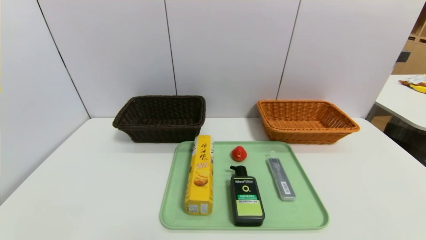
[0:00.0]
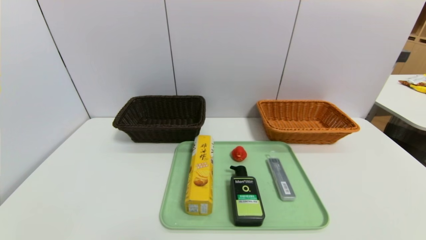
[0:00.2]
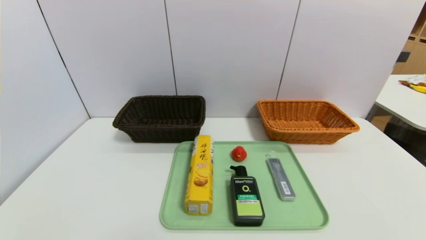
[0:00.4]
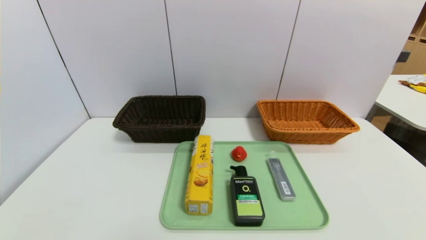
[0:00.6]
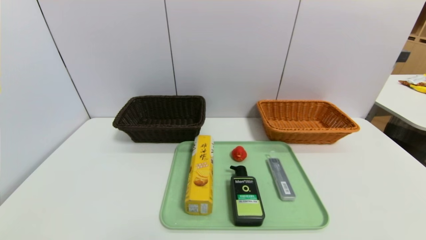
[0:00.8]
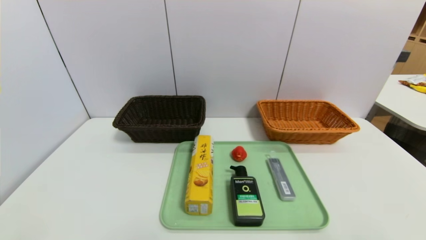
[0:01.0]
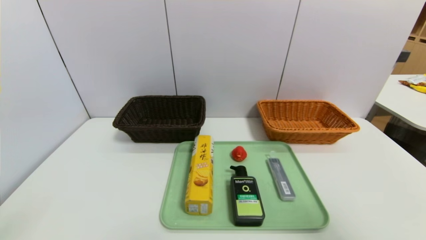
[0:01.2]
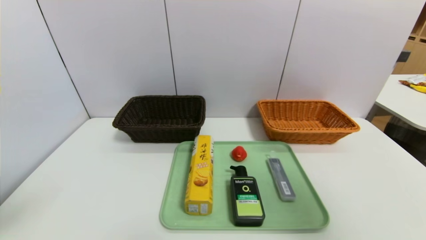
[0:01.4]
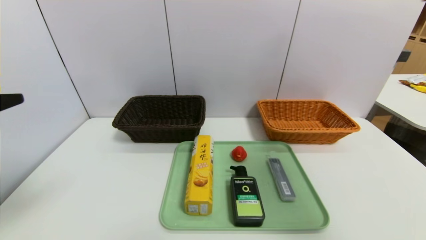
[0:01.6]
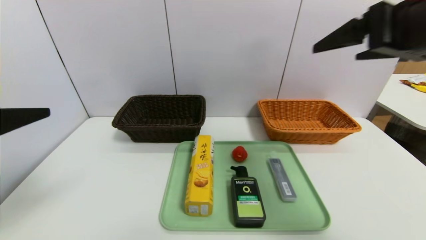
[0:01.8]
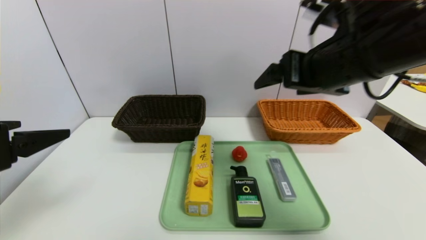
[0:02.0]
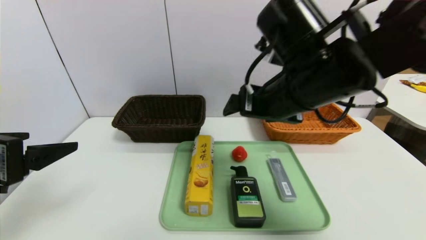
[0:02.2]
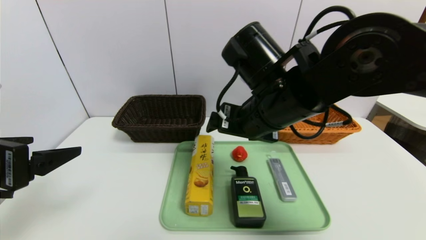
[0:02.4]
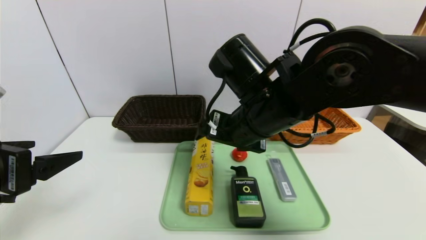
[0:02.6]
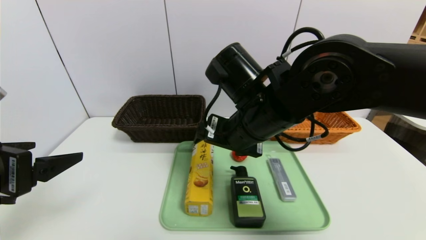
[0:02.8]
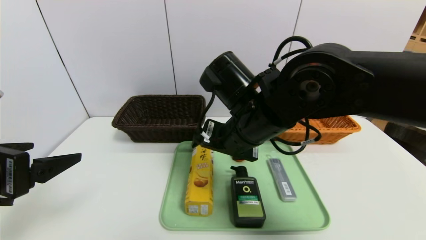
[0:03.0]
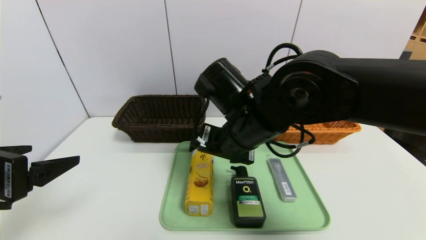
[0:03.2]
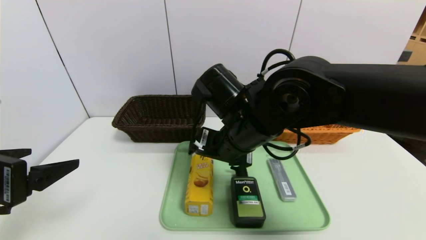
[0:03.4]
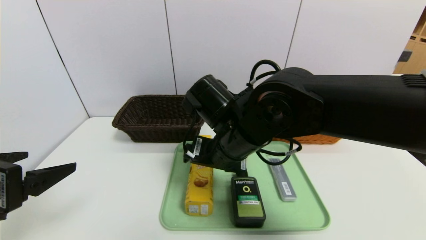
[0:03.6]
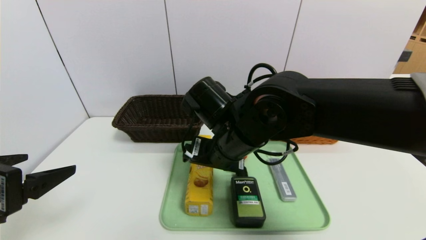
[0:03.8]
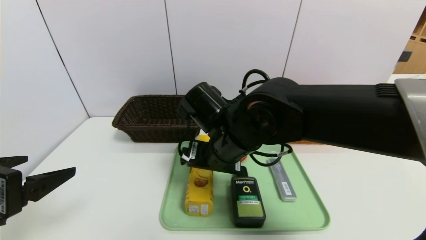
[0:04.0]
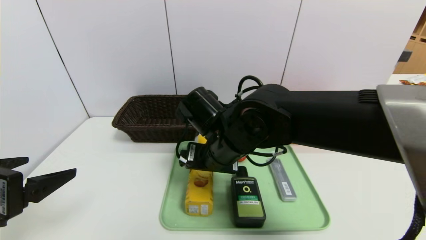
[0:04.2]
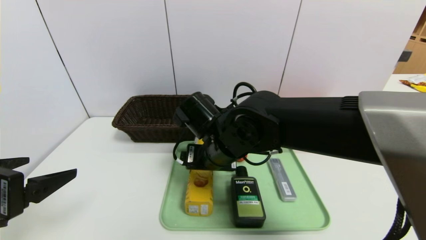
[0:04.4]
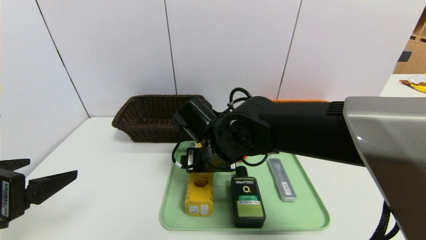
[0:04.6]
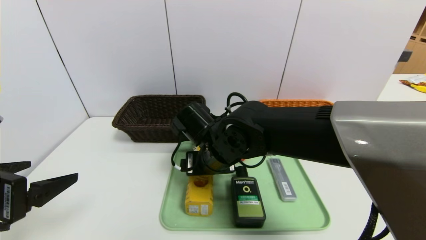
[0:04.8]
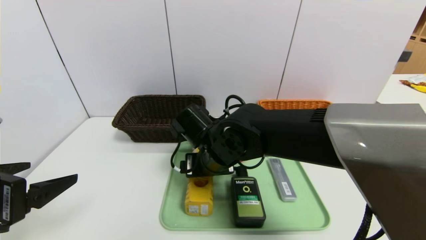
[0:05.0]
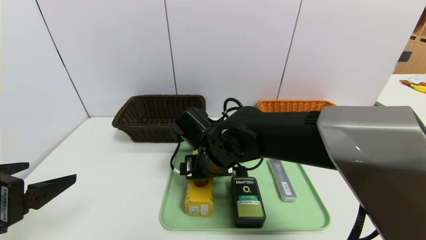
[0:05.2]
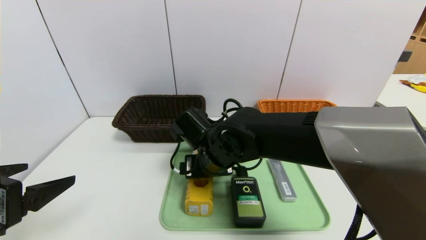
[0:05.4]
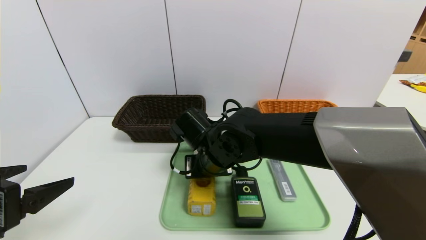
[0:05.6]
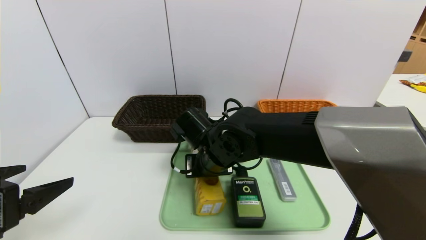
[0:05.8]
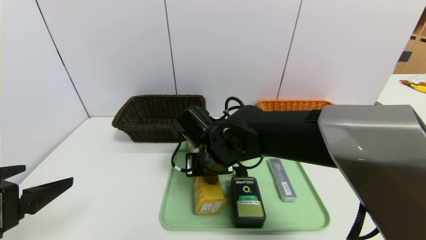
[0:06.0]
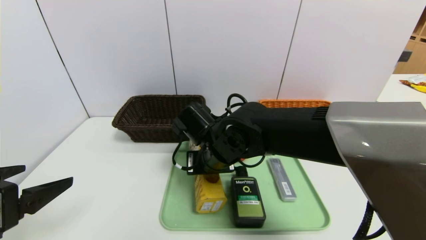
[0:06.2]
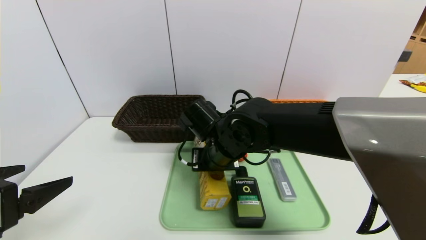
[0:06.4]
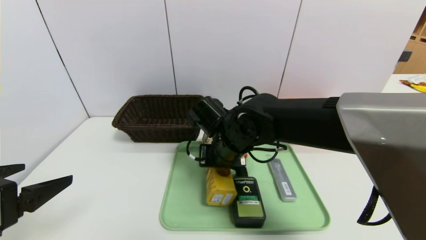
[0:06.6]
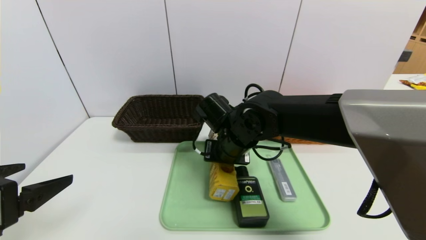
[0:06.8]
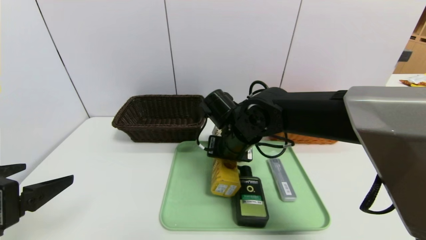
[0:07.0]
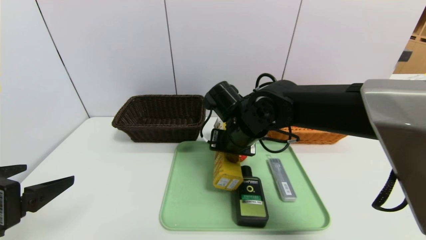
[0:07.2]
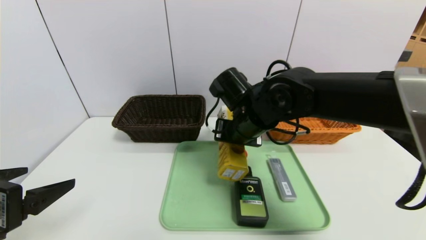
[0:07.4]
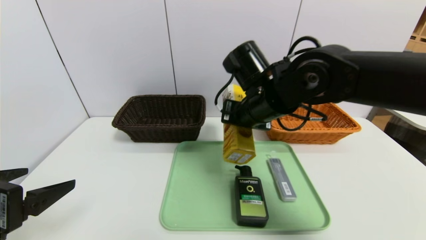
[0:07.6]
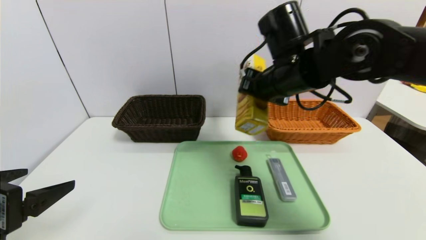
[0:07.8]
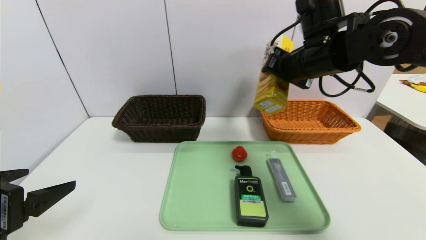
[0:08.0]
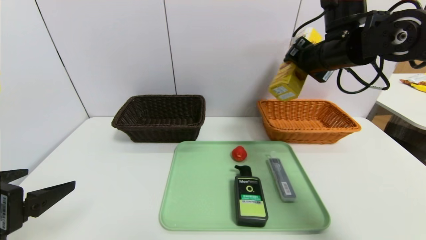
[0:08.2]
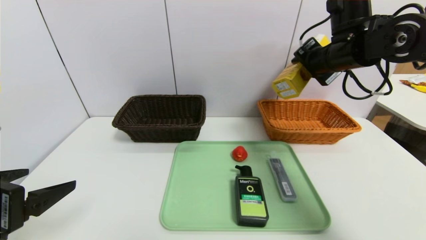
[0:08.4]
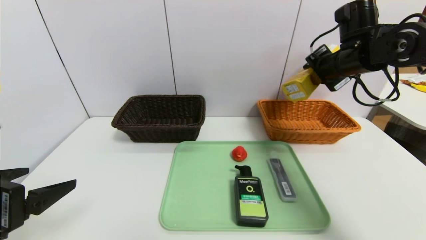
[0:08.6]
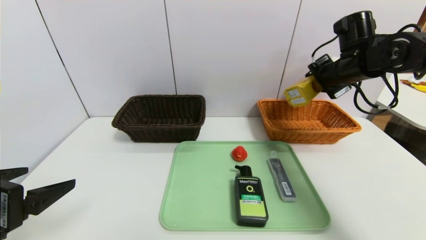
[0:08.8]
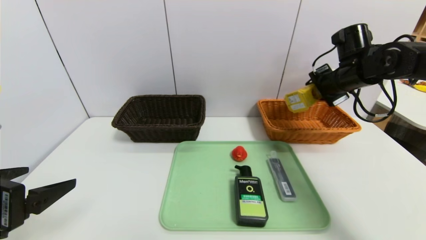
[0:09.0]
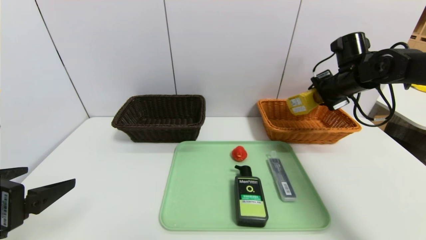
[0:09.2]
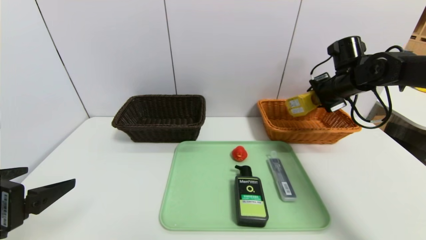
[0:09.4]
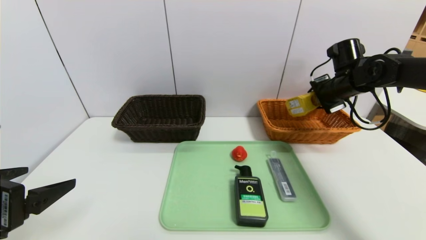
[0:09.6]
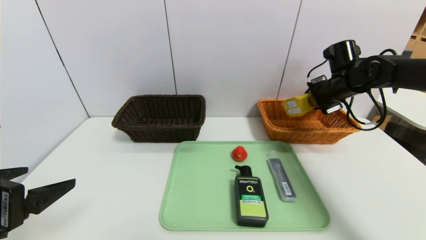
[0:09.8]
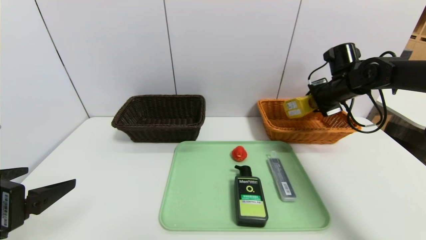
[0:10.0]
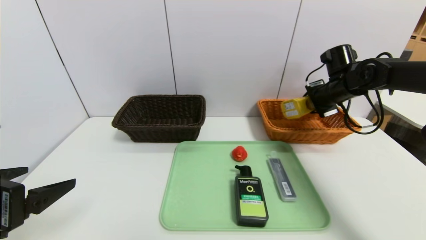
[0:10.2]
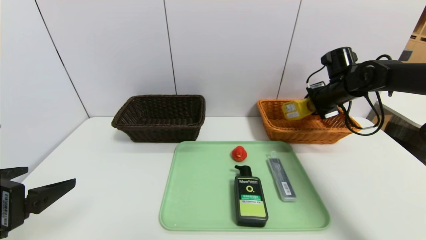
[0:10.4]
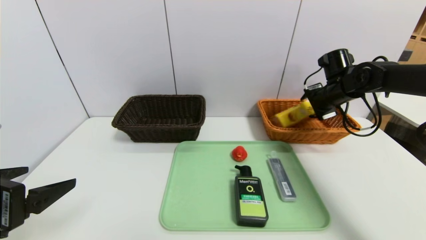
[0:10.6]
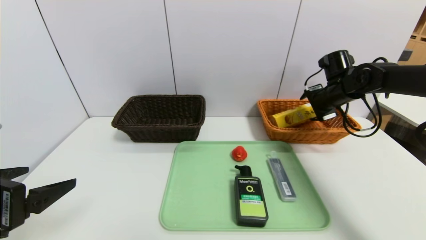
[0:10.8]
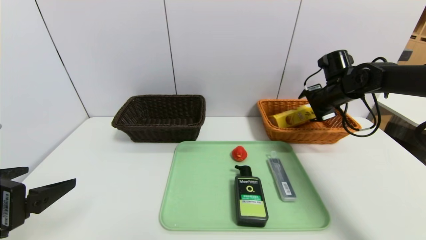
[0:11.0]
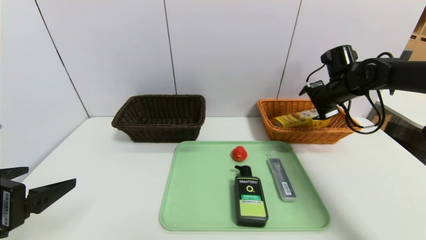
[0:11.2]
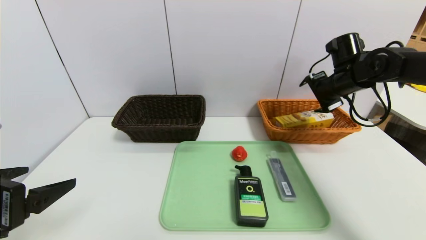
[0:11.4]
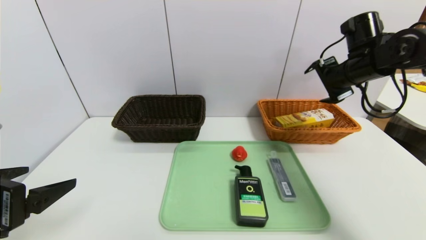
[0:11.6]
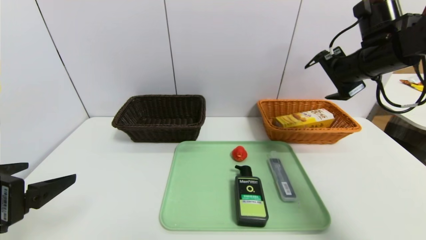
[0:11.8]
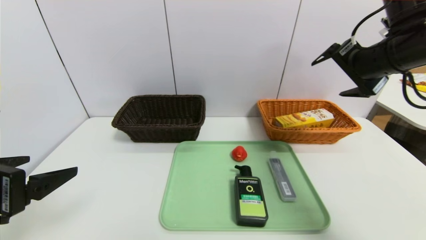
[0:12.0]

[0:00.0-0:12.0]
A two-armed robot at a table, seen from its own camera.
Task of the whole recording: place the food in the right basket with the right gripper, and place the non food items in the left basket with the left gripper.
Step, 0:00.0 to 0:11.0: Grasp the potato chips and put it in the left basket.
0:00.0 to 0:01.6: The two grippers go roughly 35 cm upward and forward.
0:01.6 to 0:03.0: The right gripper moves to the left, downward and forward, approximately 35 cm; the left gripper travels downward by about 5 cm.
0:03.0 to 0:04.4: The right gripper is displaced downward by roughly 5 cm.
0:04.4 to 0:06.0: The right gripper closes its fingers.
0:06.0 to 0:07.6: The right gripper shifts some 15 cm upward and to the right.
0:07.6 to 0:09.0: The right gripper moves to the right and forward, approximately 25 cm.
0:09.0 to 0:10.4: The right gripper changes place by some 5 cm.
0:10.4 to 0:12.0: The right gripper shifts about 20 cm backward and upward, and opens.

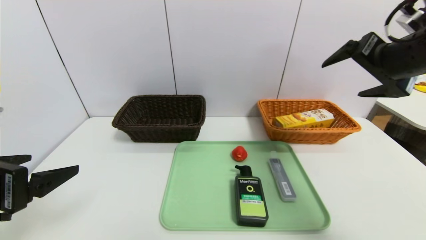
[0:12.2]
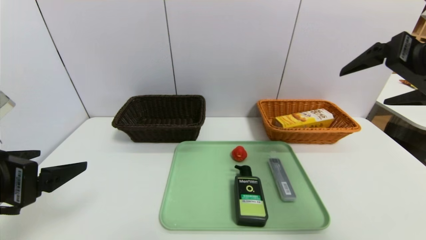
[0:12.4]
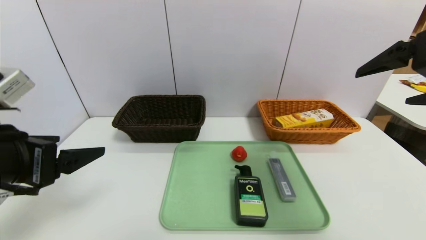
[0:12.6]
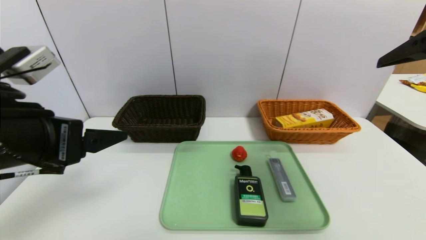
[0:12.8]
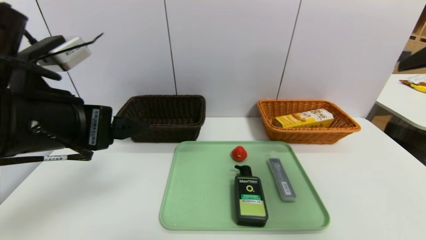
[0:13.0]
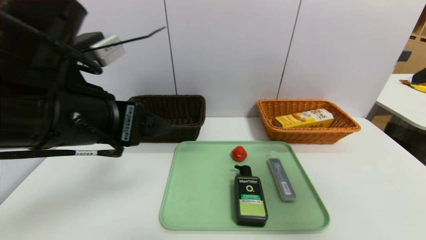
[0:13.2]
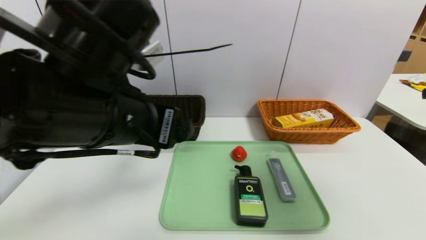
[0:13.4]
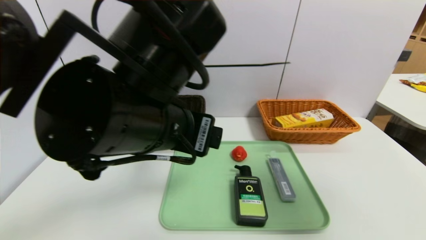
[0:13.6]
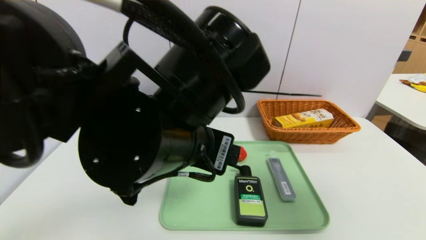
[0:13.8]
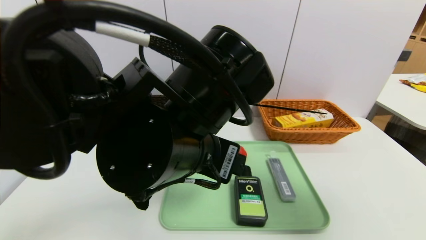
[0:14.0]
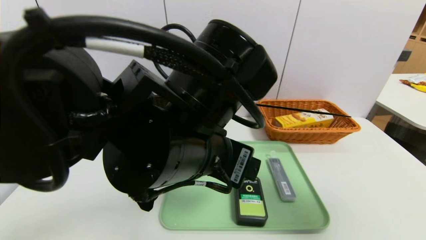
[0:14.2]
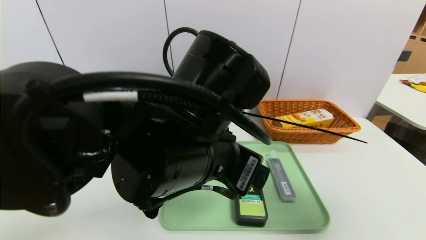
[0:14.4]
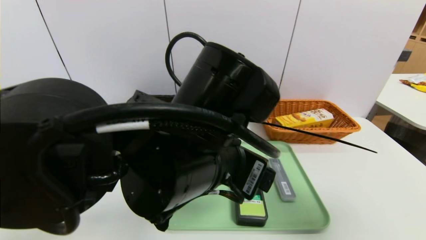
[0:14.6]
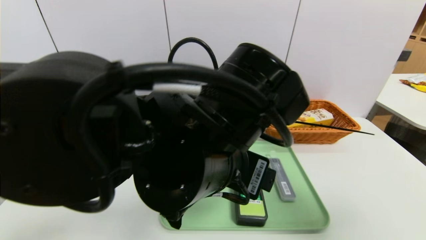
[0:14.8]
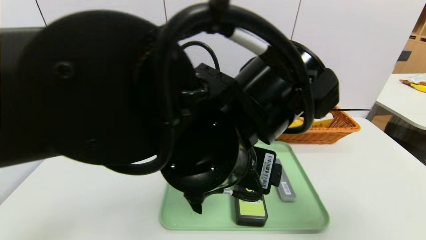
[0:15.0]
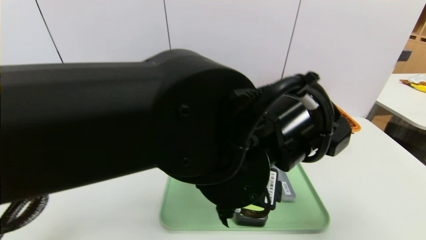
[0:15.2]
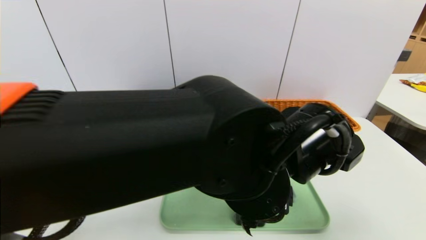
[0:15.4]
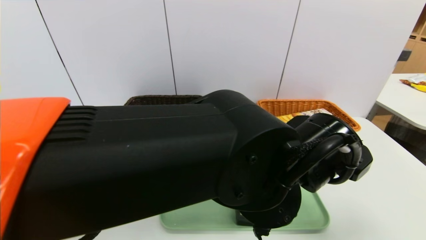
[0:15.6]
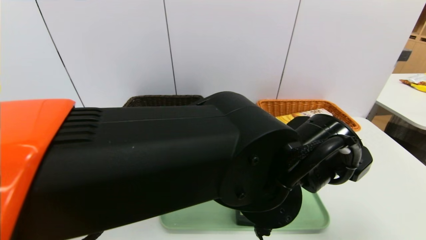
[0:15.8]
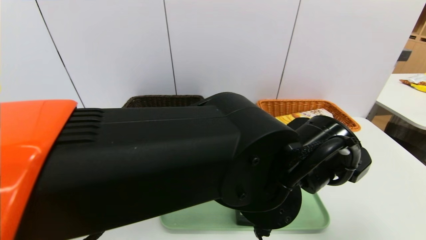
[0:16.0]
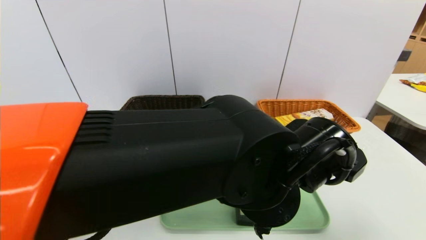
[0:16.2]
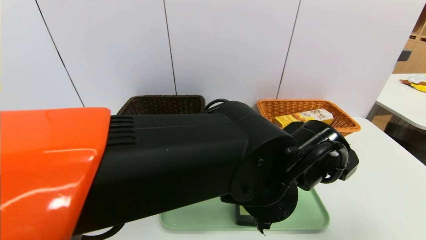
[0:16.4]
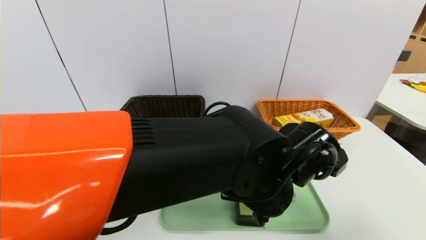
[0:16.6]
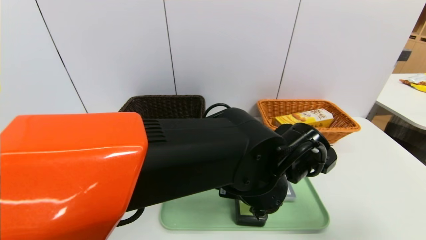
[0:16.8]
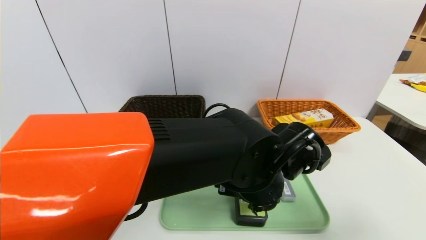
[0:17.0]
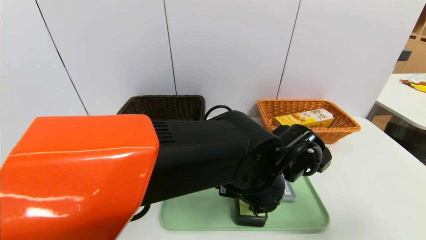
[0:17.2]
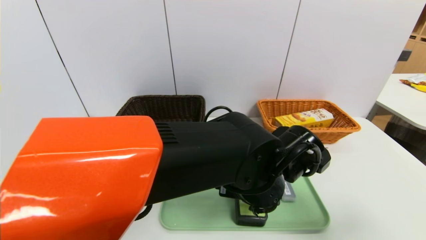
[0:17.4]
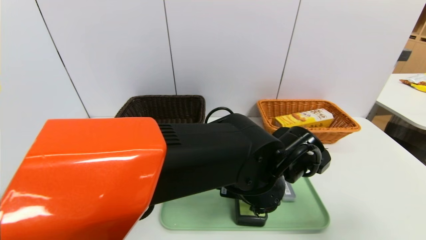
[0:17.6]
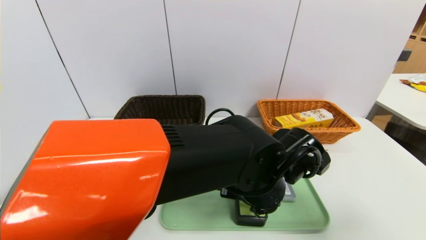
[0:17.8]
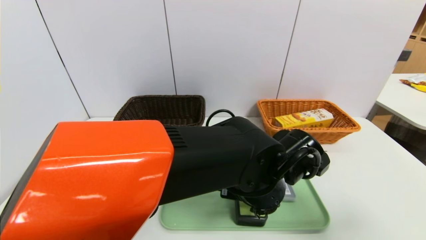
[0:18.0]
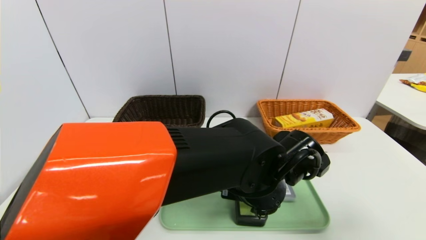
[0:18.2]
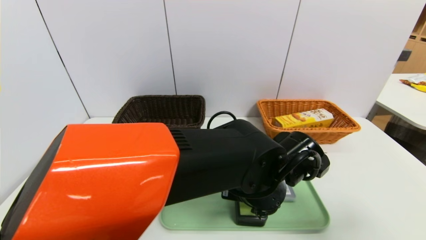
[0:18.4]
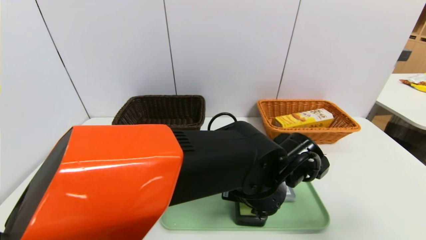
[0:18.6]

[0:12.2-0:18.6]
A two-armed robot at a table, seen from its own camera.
Task of the whole recording: place the food in the right basket with the right gripper, and place the non food items in the left basket with the left gripper.
0:12.2 to 0:13.8: The left gripper moves to the right, approximately 25 cm, while the right gripper heads backward, covering about 15 cm.
0:13.8 to 0:15.4: The right gripper moves approximately 5 cm. Meanwhile the left gripper shifts about 10 cm to the right and downward.
0:15.4 to 0:17.0: The left gripper shifts by approximately 5 cm.
0:17.0 to 0:18.6: The grippers move only a little.
